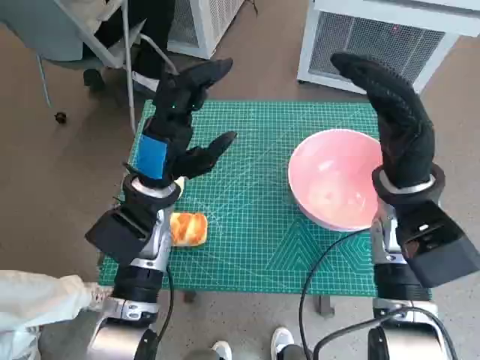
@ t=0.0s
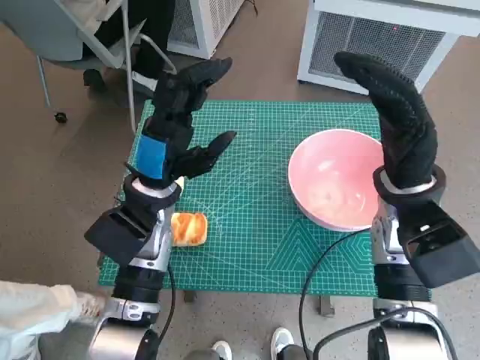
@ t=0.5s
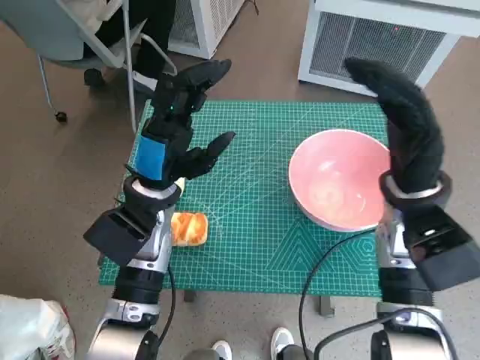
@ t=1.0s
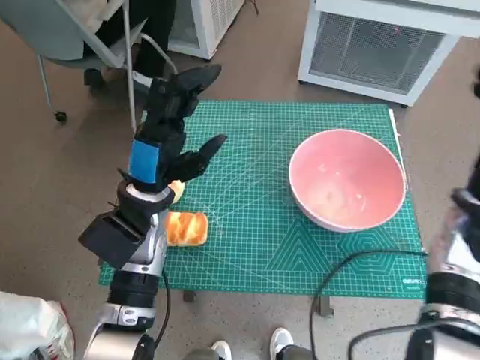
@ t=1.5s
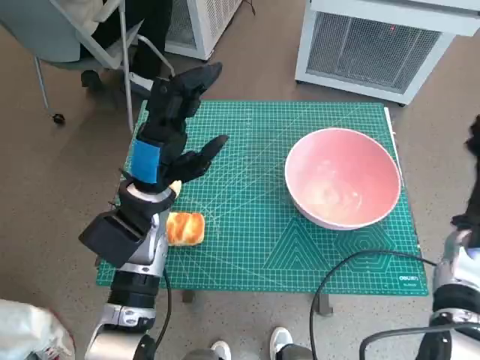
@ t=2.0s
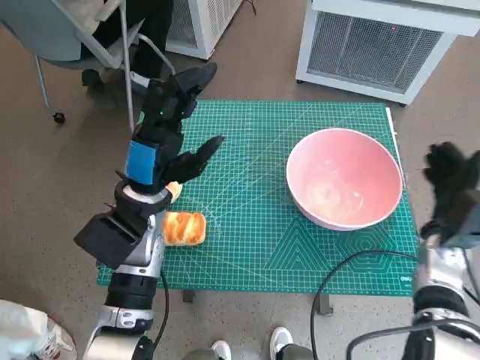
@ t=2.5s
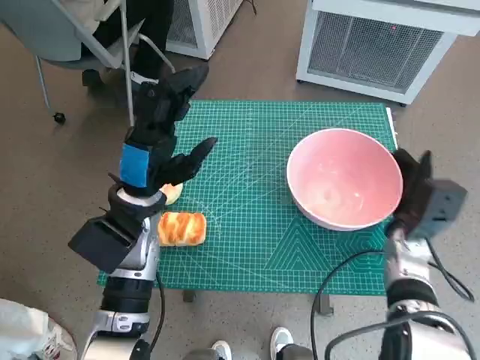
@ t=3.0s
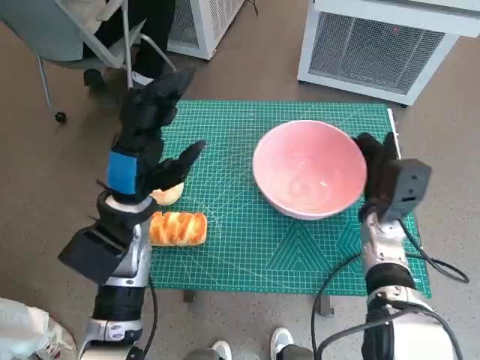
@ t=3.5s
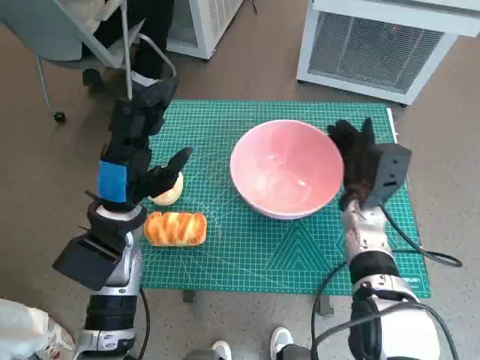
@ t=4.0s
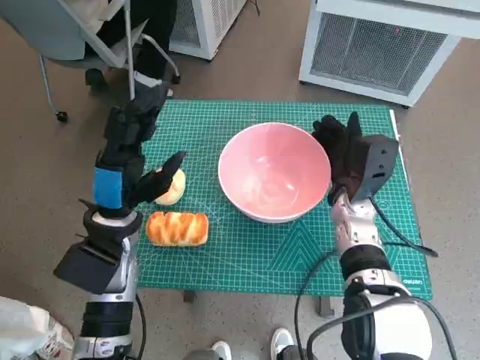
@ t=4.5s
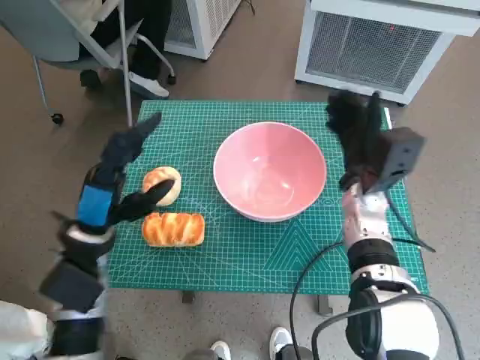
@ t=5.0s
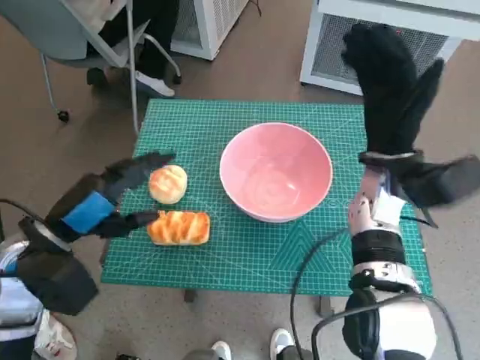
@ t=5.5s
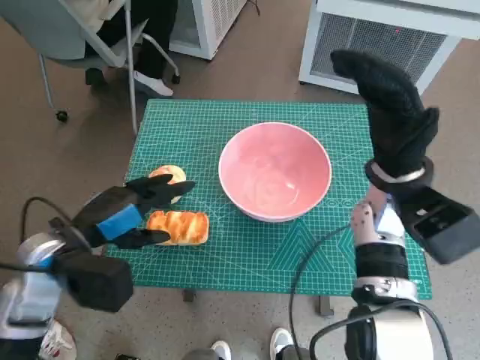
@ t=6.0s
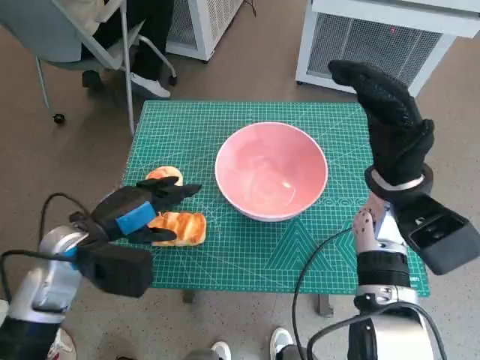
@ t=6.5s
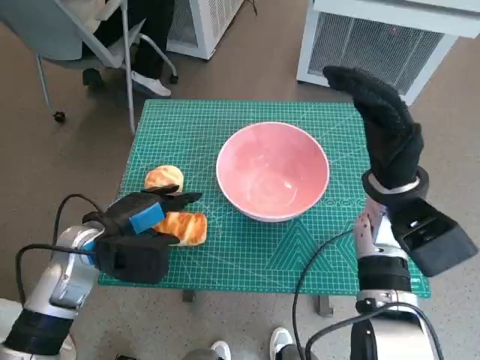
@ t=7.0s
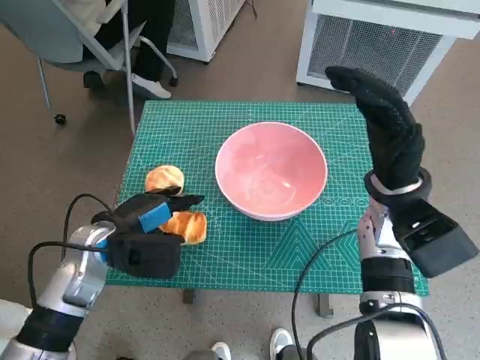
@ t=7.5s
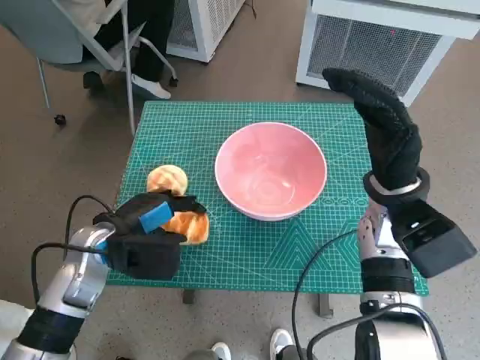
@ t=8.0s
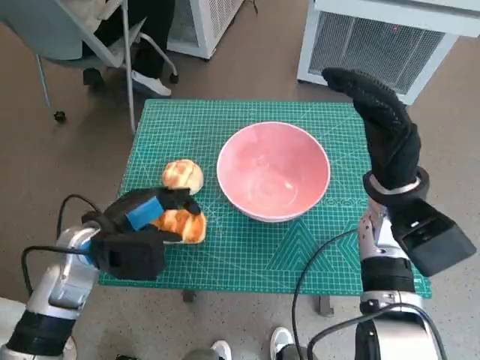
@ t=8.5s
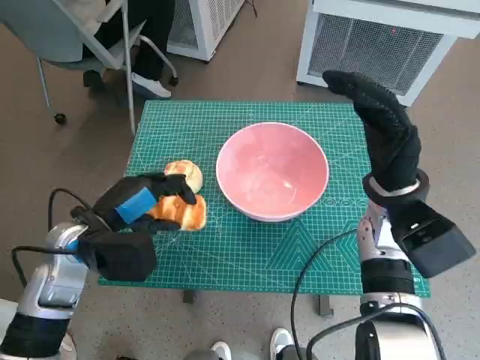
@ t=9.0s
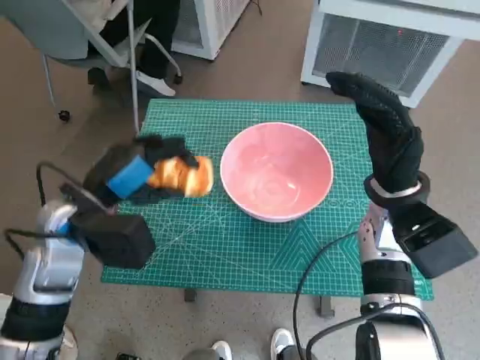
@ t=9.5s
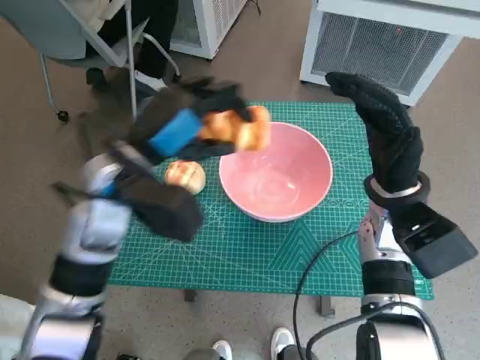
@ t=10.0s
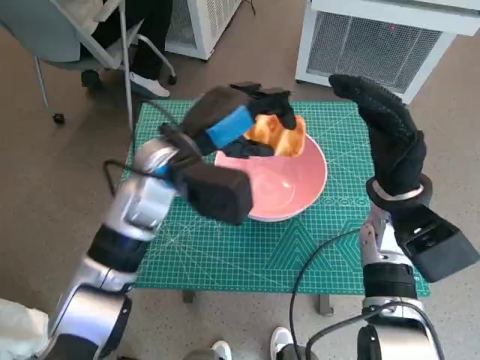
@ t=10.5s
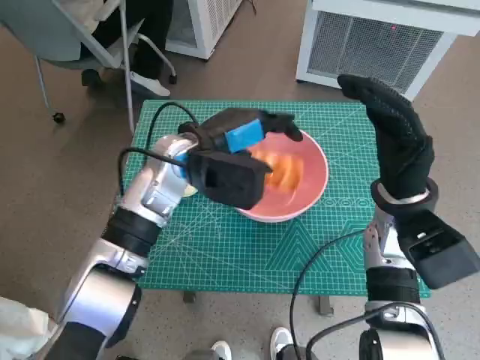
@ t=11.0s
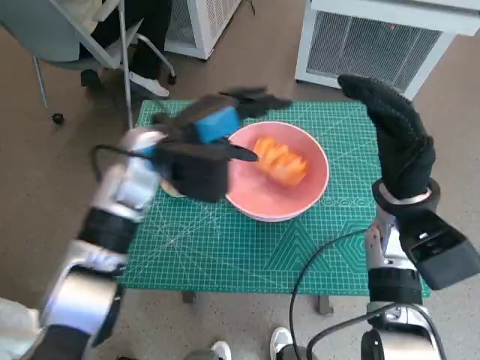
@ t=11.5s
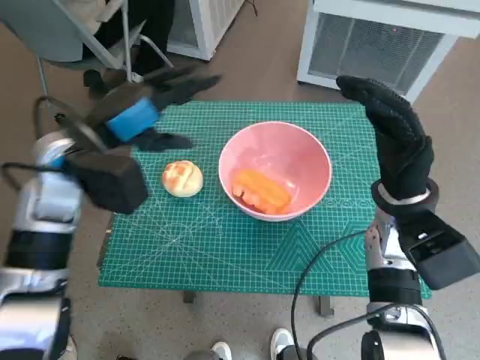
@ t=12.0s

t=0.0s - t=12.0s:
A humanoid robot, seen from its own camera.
Task of the whole recording: Push the bowl to the center of the table and put the bread into the bowl.
Step, t=0.0s - t=4.5s: Move the pink bowl to the center of table with right hand.
Step, t=5.0s - t=8.0s: Grasp the long bread with left hand.
Step, t=8.5s - t=11.0s: Place the long bread in pink bowl with left hand.
t=2.0s - t=4.0s: The right hand shifts some 15 cm to the left.
t=4.0s - t=6.0s: The right hand is displaced upward by roughly 10 cm; the left hand heads to the left, covering about 5 cm.
t=6.0s - t=8.0s: The left hand shifts by approximately 5 cm.
t=8.0s - t=10.0s: The left hand moves upward, some 10 cm.

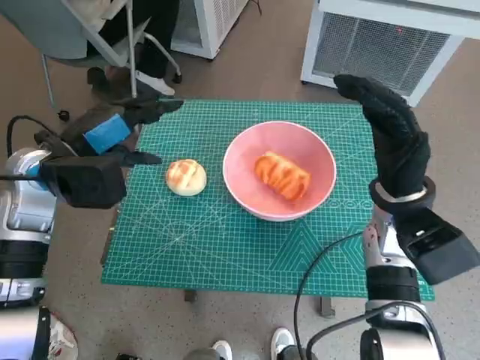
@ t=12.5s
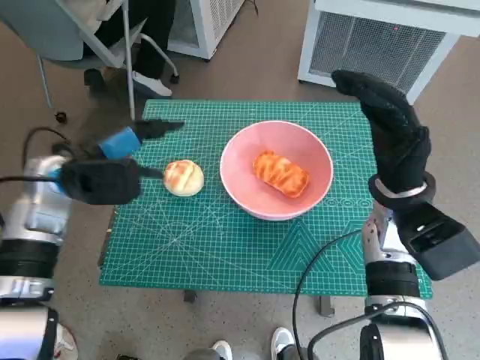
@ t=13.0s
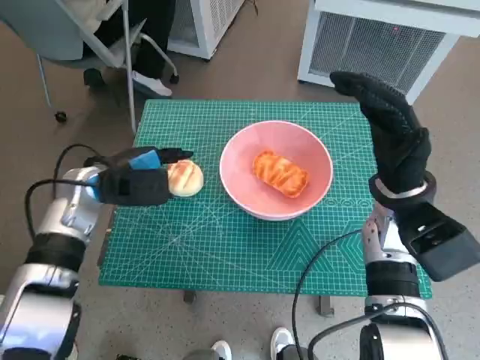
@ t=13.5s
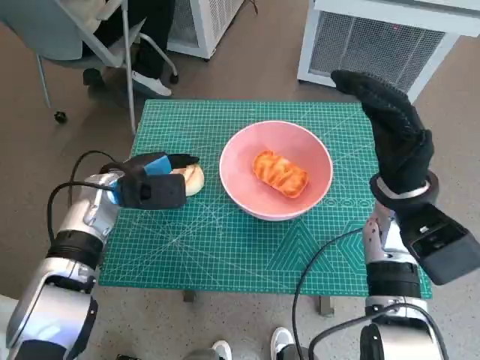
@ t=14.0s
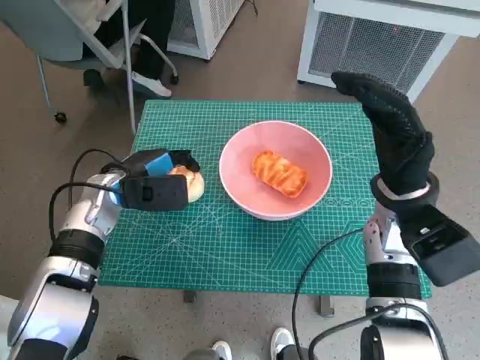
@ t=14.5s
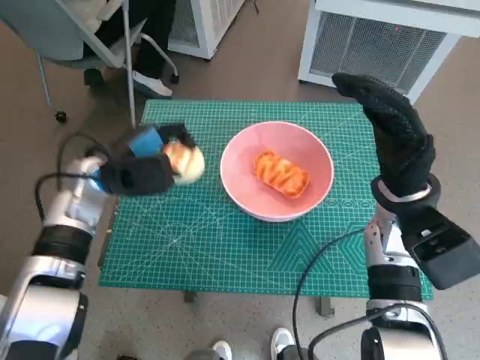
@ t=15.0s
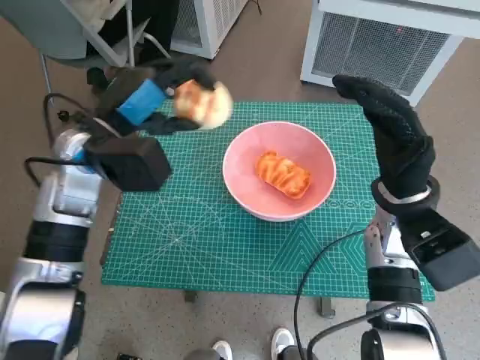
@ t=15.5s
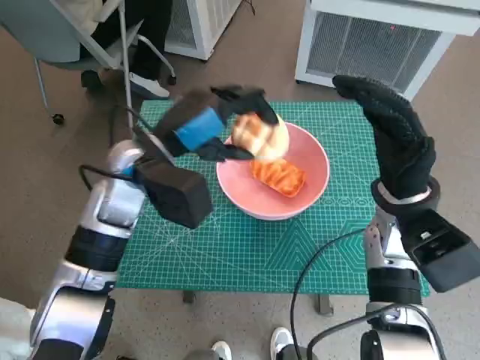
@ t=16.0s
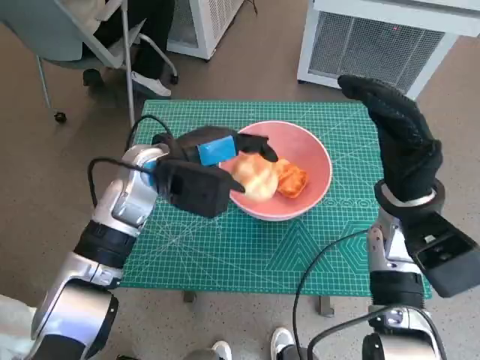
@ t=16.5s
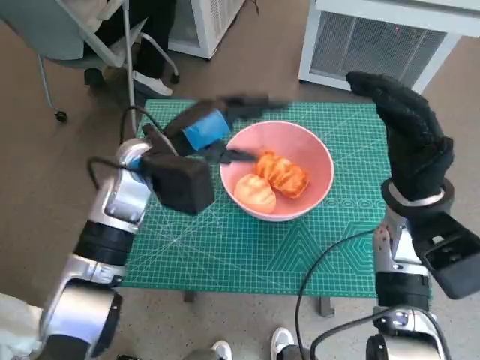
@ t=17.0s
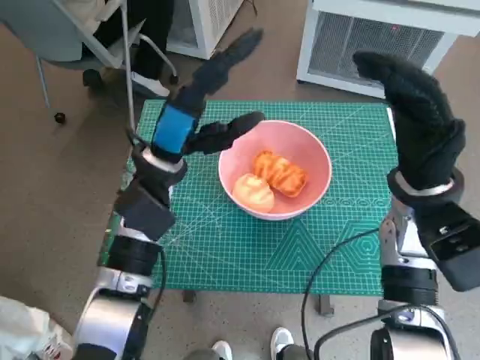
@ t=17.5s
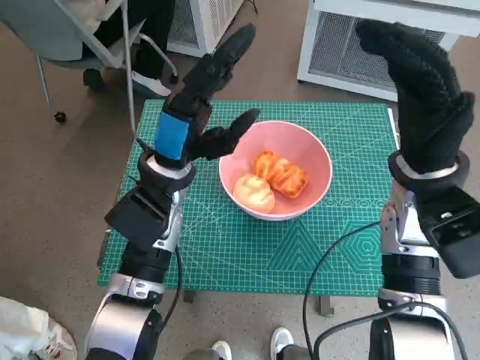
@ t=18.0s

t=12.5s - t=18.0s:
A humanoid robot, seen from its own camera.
Task of the whole recording: Push the bowl to the center of the table and put the bread into the bowl.
Step, t=12.5s - t=14.0s: Grasp the round bread with left hand.
Step, t=14.5s - t=16.5s: Place the round bread in pink bowl with left hand.
t=12.5s - t=14.5s: The left hand moves downward, about 10 cm.
t=14.5s - t=16.0s: The left hand goes approximately 10 cm upward and to the right.

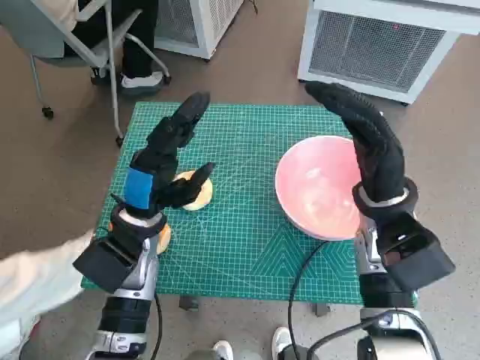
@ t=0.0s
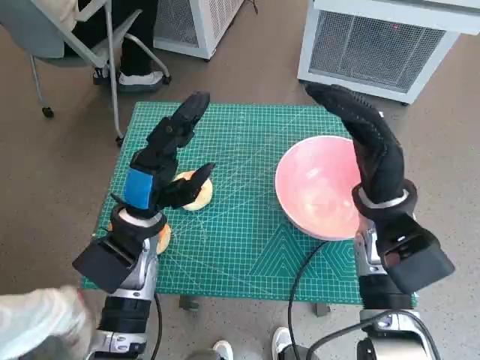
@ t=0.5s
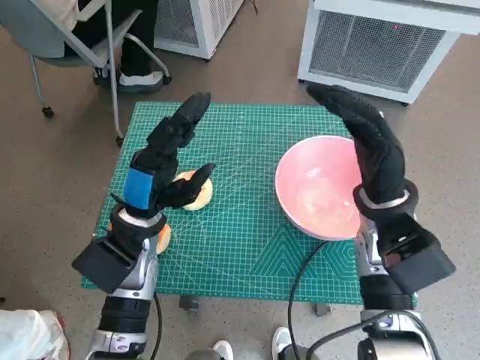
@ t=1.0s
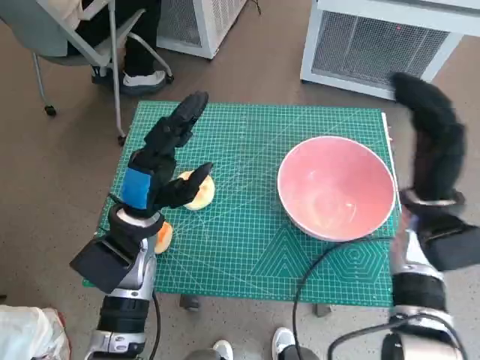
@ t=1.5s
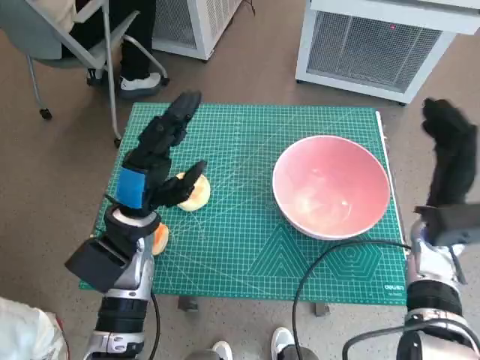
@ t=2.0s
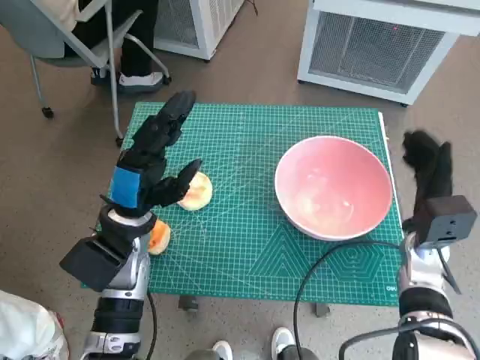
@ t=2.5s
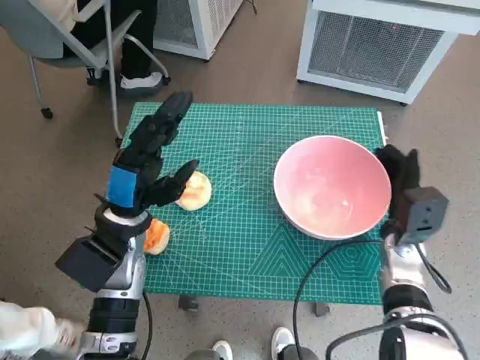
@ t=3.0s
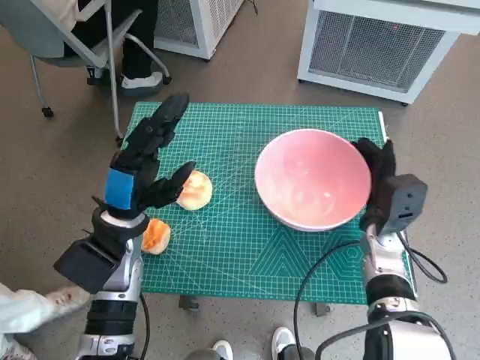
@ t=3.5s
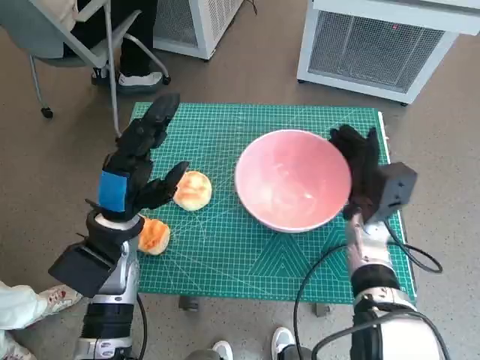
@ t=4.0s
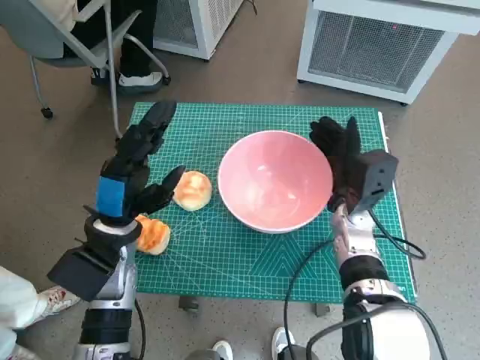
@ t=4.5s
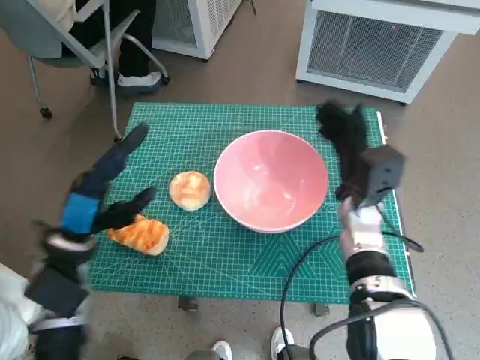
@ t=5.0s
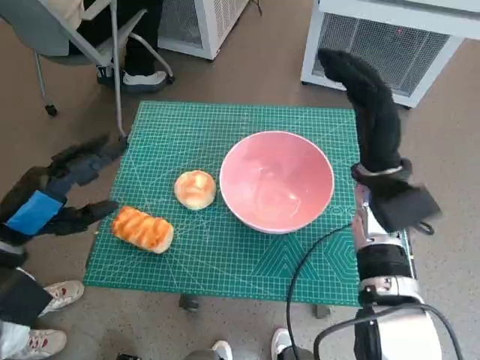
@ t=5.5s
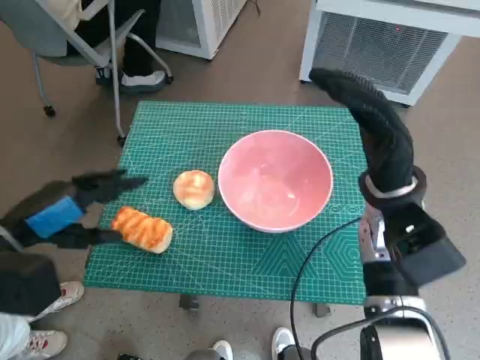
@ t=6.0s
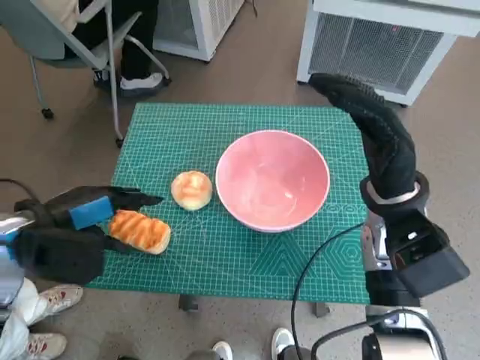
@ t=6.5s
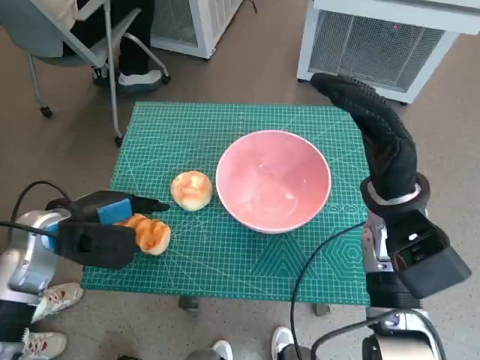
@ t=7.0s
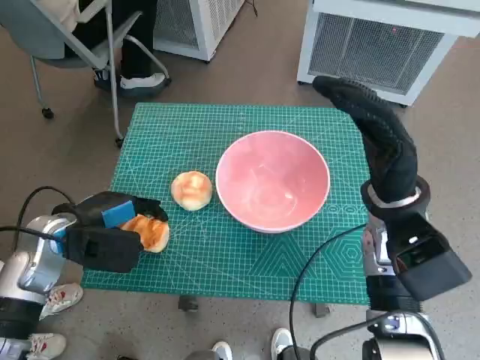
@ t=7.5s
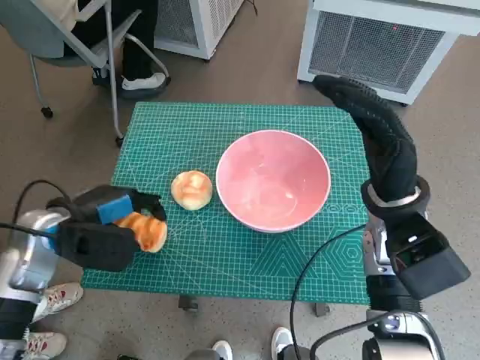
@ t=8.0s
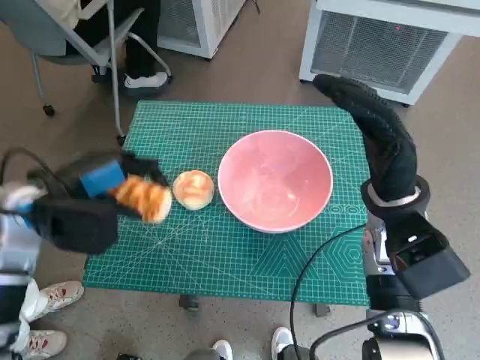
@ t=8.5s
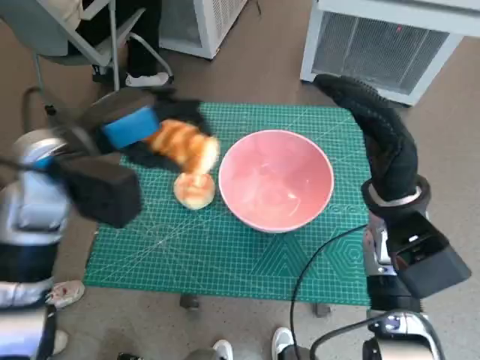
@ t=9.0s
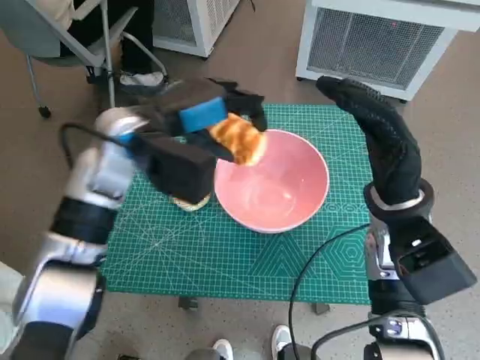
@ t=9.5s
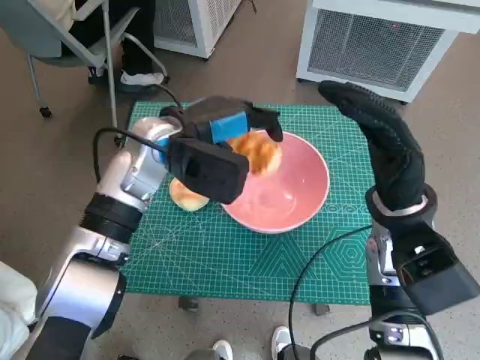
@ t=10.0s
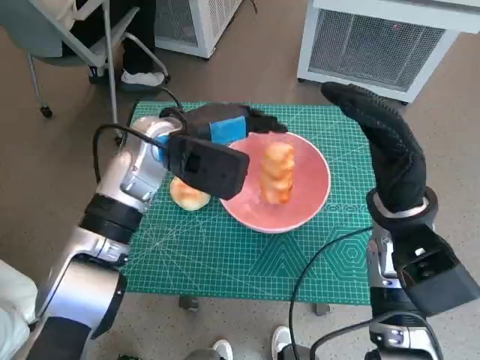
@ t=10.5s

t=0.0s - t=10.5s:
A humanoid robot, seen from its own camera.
Task of the whole recording: Push the bowl to the center of the table and put the bread into the bowl.
Step, t=0.0s - t=5.0s: Move the pink bowl to the center of table with right hand.
Step, t=5.5s - t=7.5s: Grasp the long bread with left hand.
t=2.0s - t=4.0s: The right hand is displaced to the left by roughly 10 cm.
t=4.0s - t=6.5s: The left hand shifts approximately 10 cm to the left and upward; the right hand goes roughly 10 cm upward.
t=8.5s - t=10.5s: The left hand heads to the right and forward, covering roughly 15 cm.
